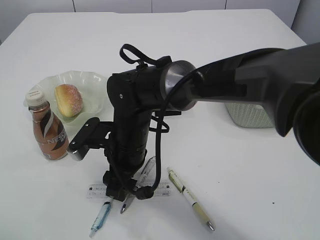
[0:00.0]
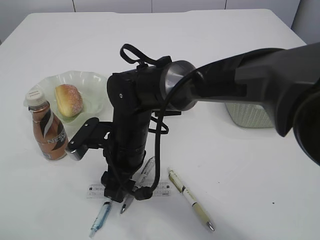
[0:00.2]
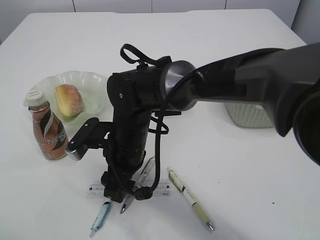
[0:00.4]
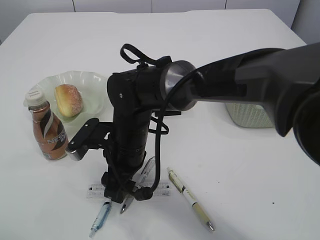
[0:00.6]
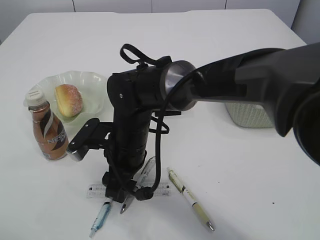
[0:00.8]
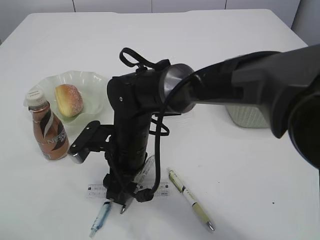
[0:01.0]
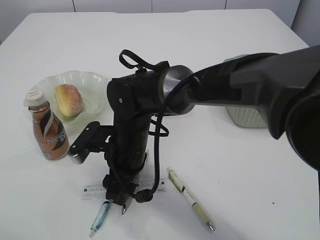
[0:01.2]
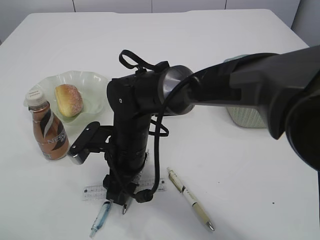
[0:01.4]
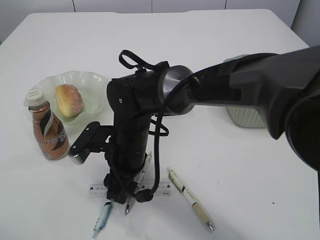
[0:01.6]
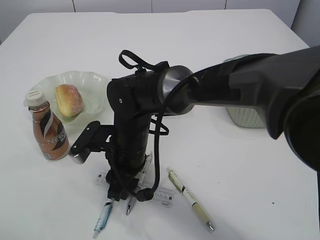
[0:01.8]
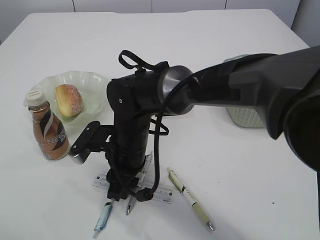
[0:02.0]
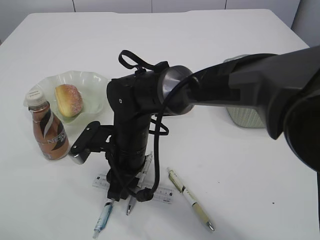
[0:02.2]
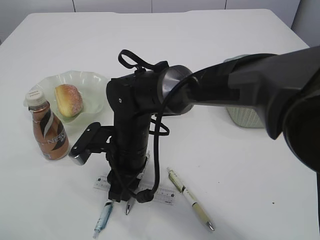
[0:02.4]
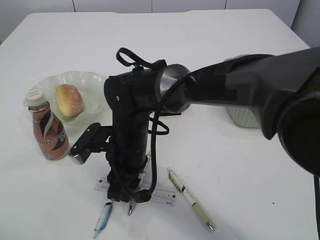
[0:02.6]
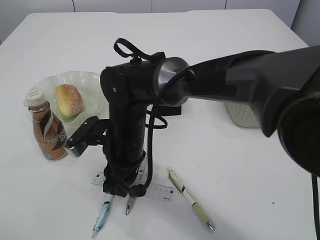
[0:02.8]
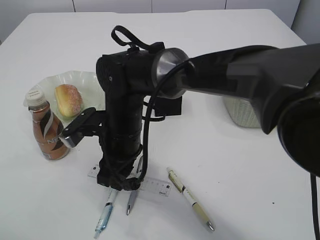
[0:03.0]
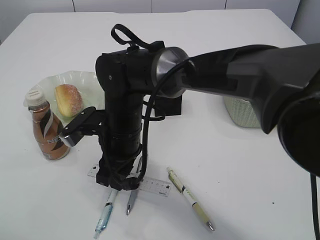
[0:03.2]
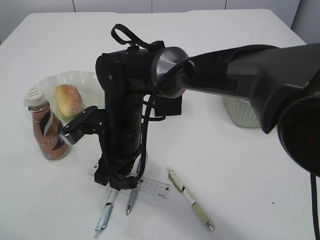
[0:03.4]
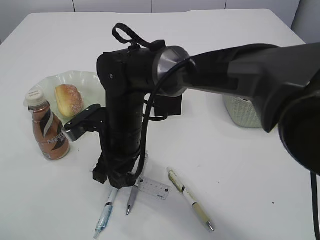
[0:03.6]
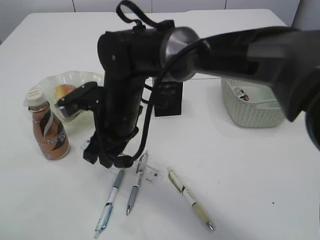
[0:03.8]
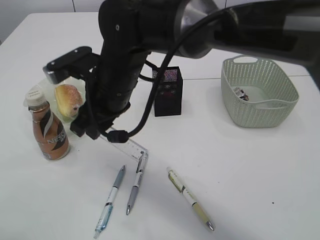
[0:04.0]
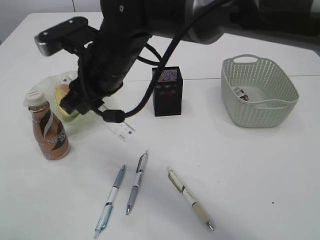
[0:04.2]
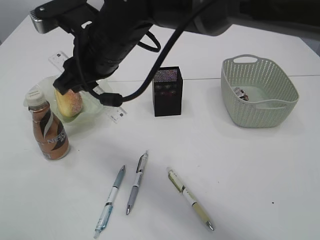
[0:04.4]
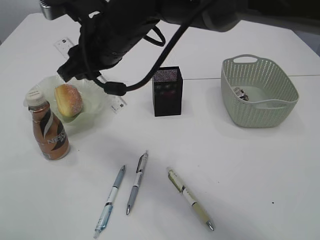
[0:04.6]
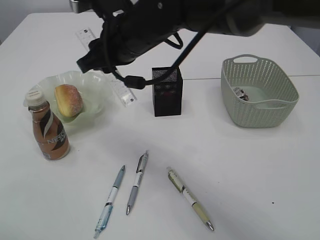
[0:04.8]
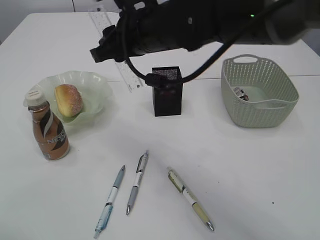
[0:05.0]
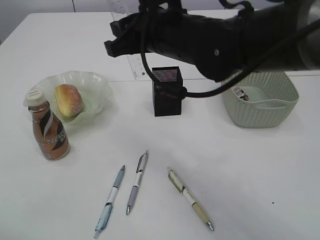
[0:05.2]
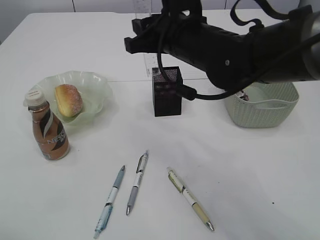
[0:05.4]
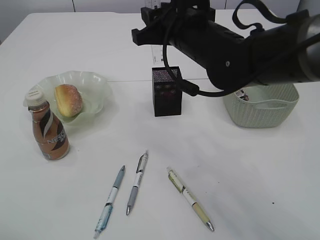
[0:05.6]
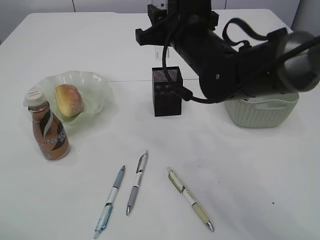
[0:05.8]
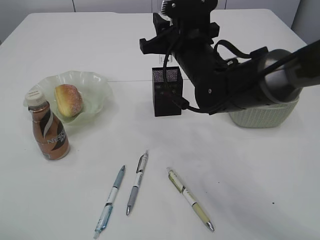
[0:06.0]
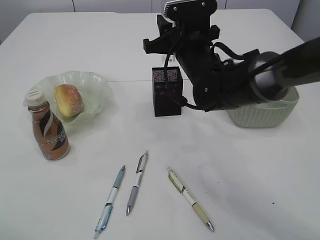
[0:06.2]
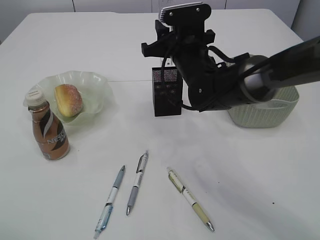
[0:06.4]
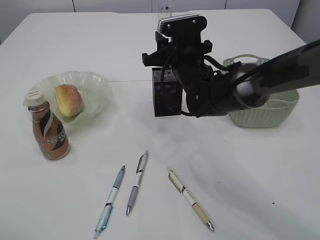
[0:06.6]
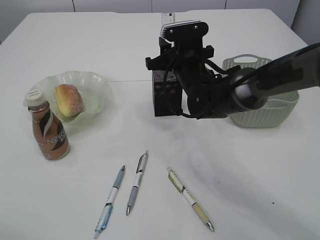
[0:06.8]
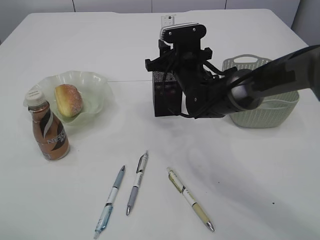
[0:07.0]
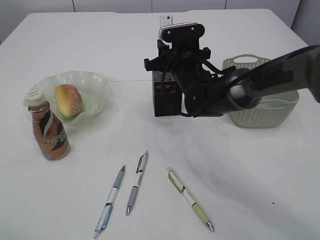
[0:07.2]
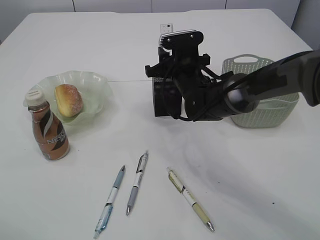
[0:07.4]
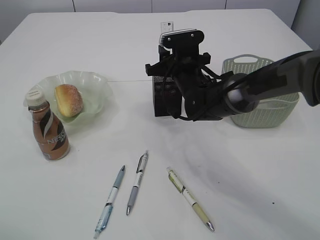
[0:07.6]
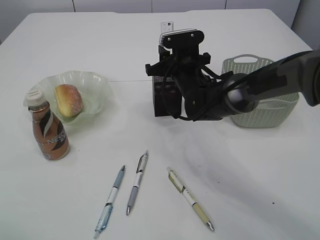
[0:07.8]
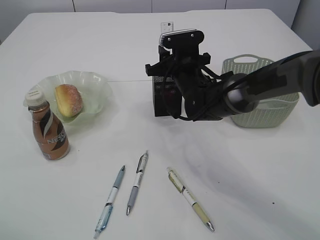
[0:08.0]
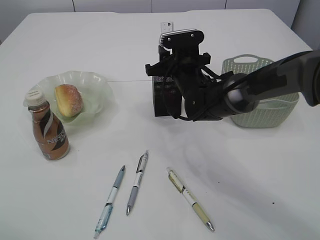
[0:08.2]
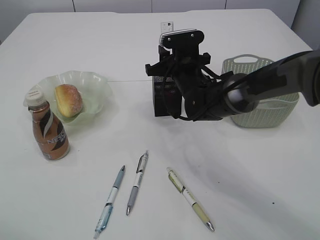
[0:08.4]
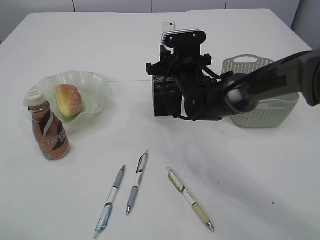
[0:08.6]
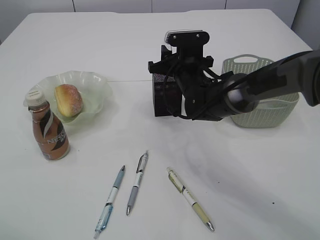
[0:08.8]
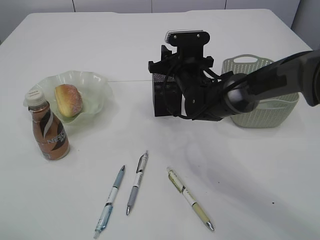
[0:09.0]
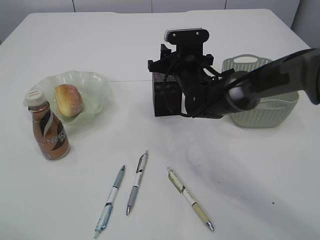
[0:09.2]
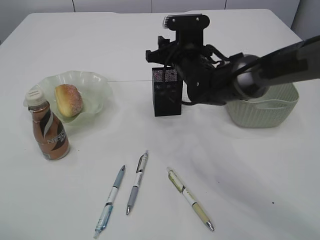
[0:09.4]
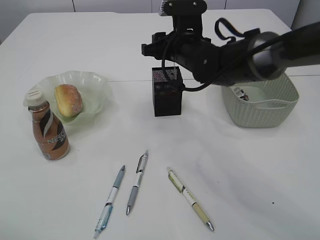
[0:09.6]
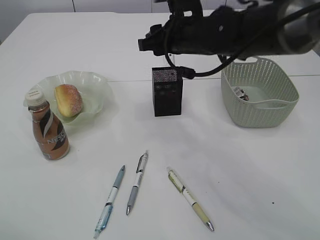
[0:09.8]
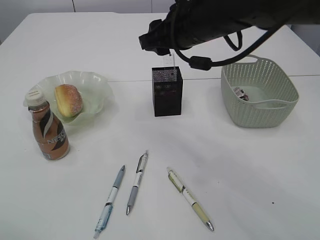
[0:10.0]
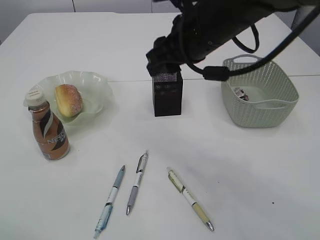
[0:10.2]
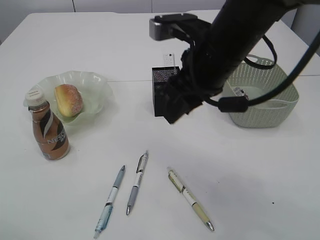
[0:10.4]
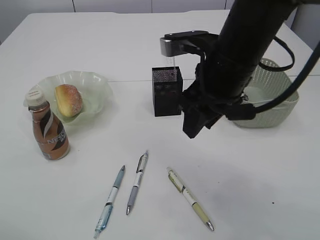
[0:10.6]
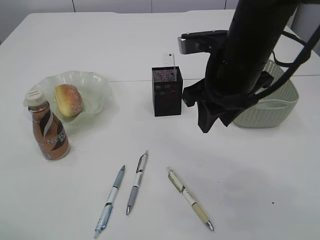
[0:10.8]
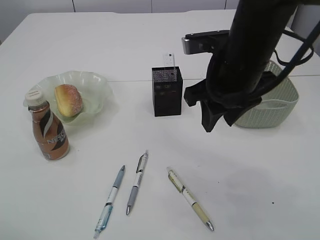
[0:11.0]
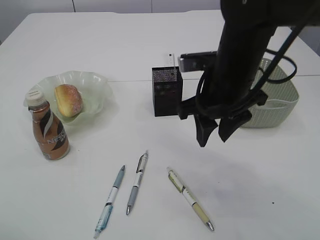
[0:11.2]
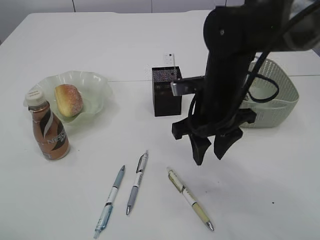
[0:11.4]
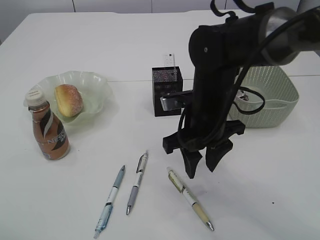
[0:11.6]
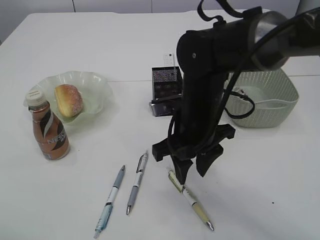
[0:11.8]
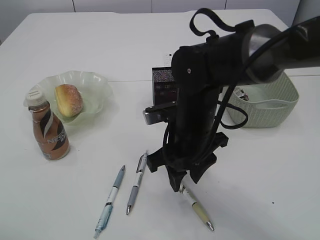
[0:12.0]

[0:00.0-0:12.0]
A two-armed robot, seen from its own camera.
Step, 0:00.0 to 0:03.8: pick up the ruler.
Step, 0:04.0 to 0:10.0: Place the ruler into the pen holder.
0:00.0 to 0:01.6: Neither gripper changes place.
0:01.6 to 0:03.0: The right gripper closes up.
0:03.0 to 0:04.4: The right gripper goes approximately 15 cm upward.
0:04.4 to 0:06.0: The right gripper shifts some 10 cm to the right.
0:06.0 to 0:07.6: The right gripper goes roughly 10 cm downward and forward.
0:07.6 to 0:09.0: The grippers make only small movements.
0:09.0 to 0:10.4: The right gripper is displaced backward and upward by approximately 20 cm.
0:10.4 to 0:12.0: The right gripper travels downward by approximately 10 cm.

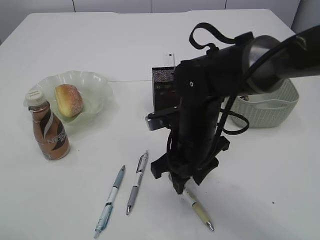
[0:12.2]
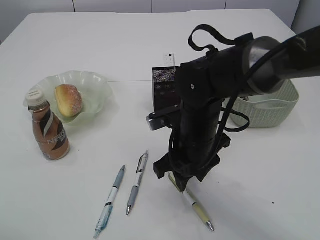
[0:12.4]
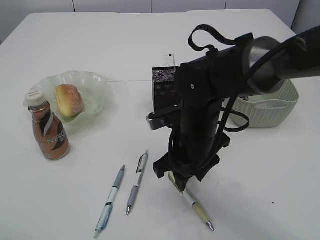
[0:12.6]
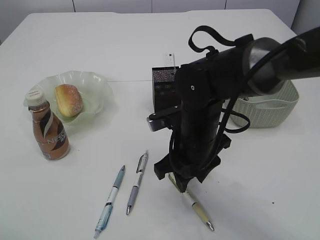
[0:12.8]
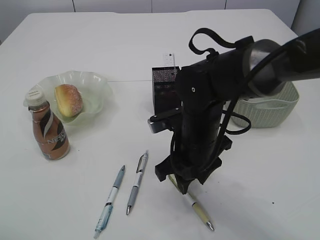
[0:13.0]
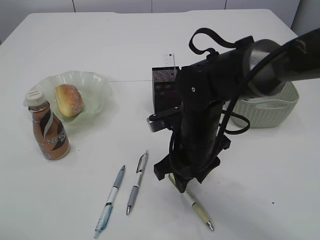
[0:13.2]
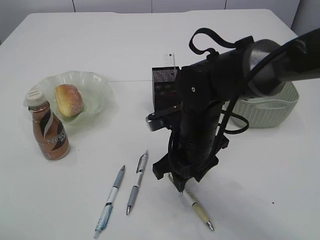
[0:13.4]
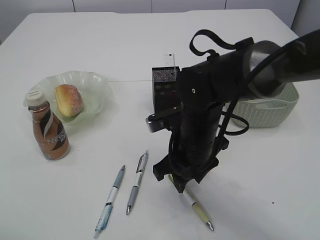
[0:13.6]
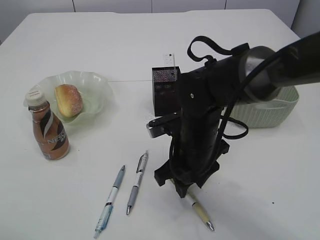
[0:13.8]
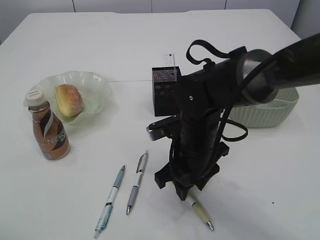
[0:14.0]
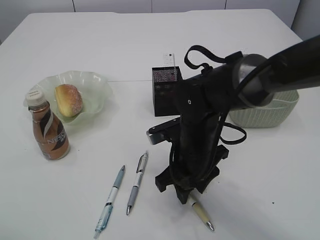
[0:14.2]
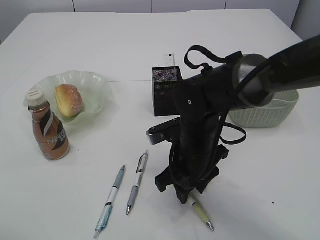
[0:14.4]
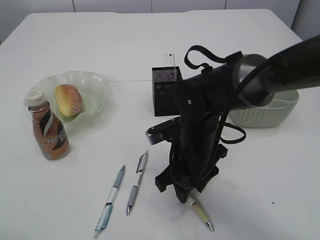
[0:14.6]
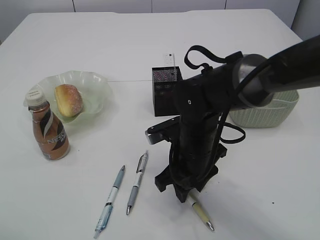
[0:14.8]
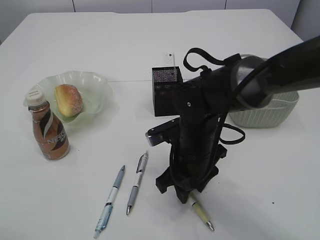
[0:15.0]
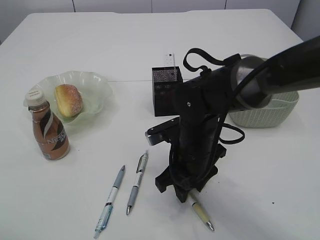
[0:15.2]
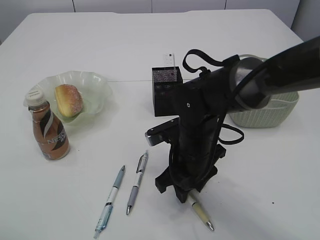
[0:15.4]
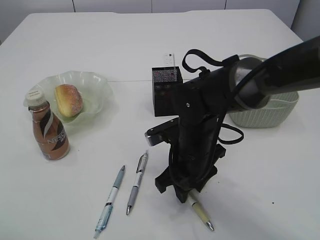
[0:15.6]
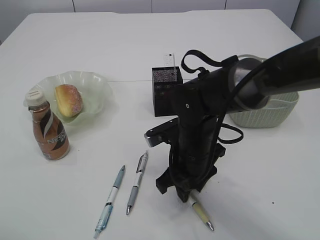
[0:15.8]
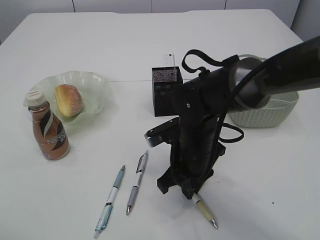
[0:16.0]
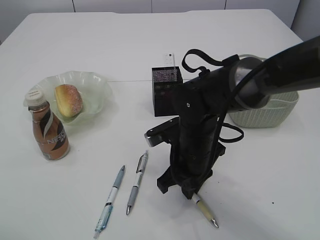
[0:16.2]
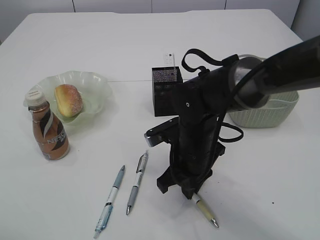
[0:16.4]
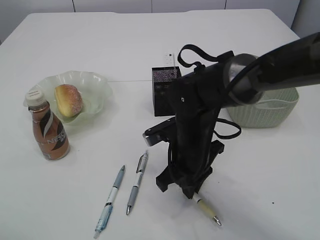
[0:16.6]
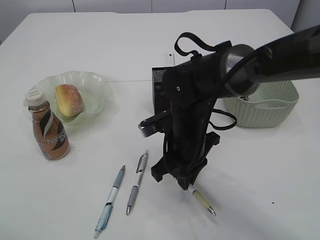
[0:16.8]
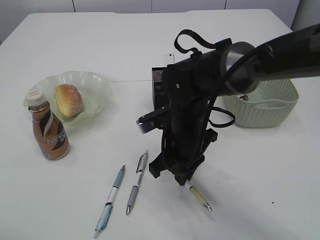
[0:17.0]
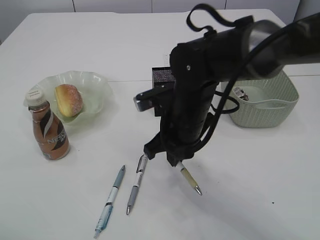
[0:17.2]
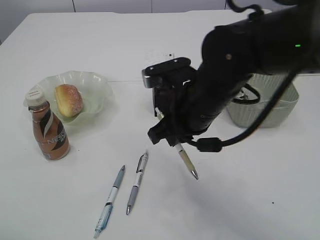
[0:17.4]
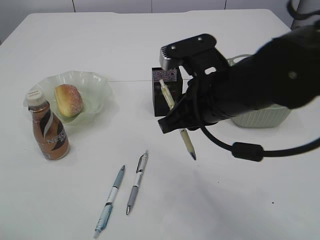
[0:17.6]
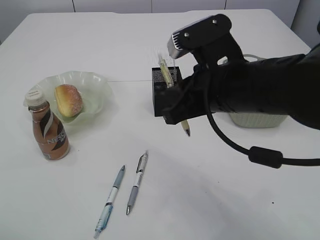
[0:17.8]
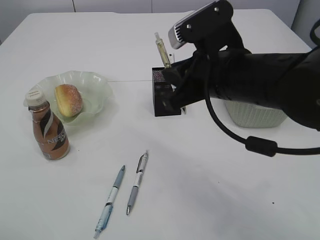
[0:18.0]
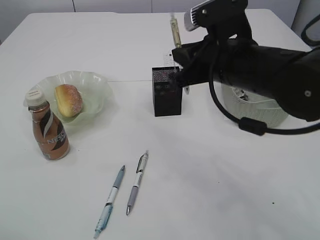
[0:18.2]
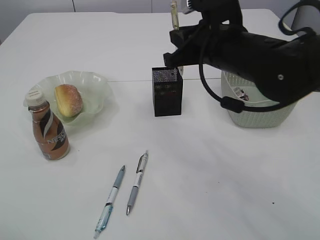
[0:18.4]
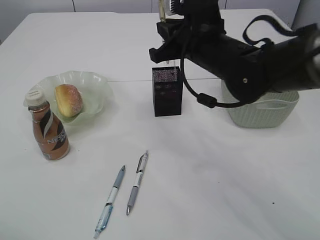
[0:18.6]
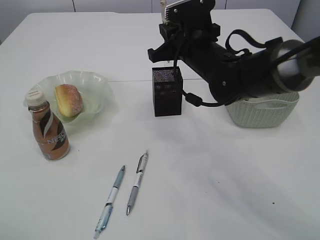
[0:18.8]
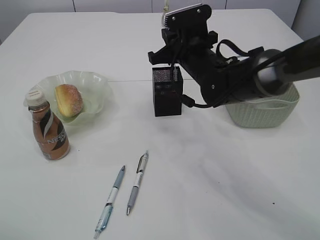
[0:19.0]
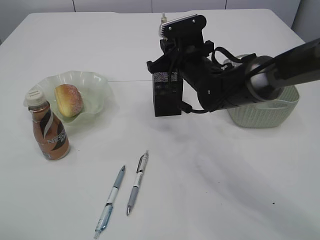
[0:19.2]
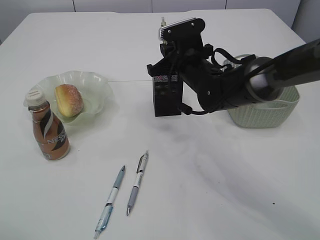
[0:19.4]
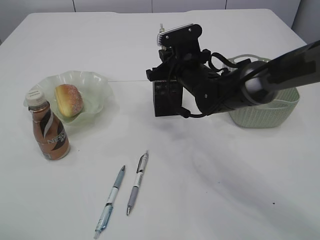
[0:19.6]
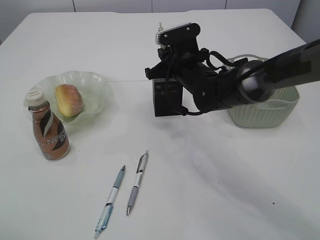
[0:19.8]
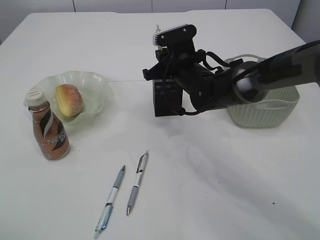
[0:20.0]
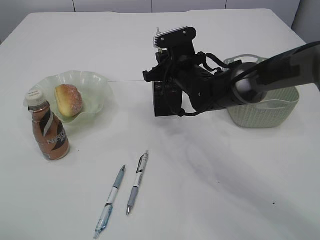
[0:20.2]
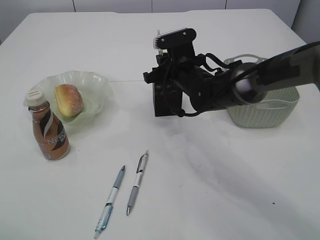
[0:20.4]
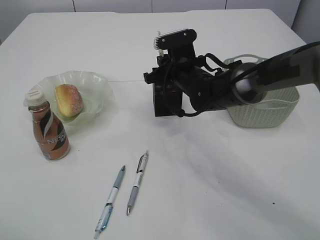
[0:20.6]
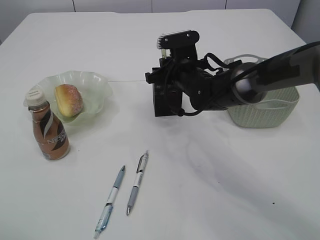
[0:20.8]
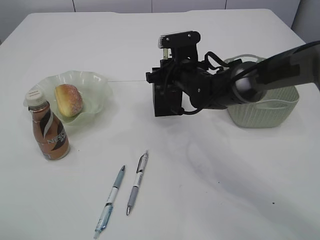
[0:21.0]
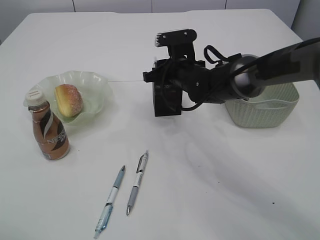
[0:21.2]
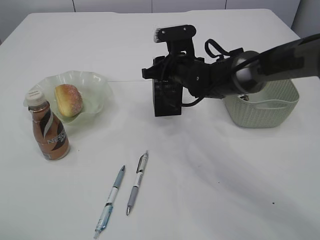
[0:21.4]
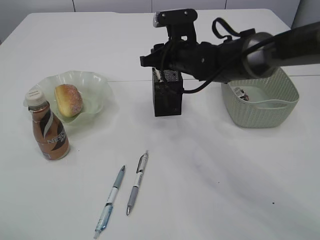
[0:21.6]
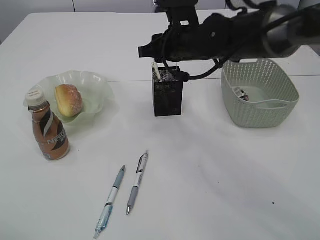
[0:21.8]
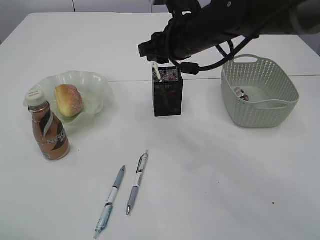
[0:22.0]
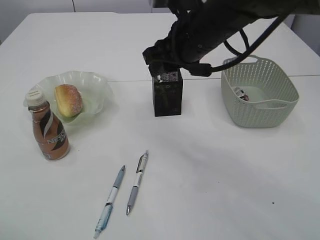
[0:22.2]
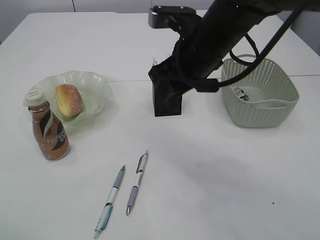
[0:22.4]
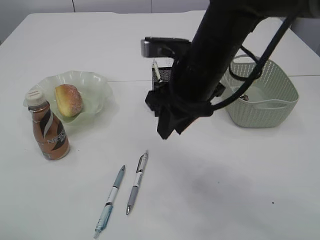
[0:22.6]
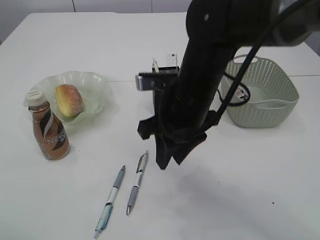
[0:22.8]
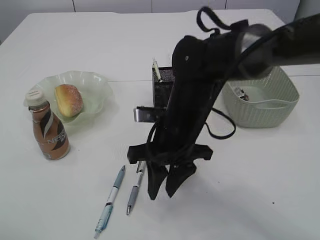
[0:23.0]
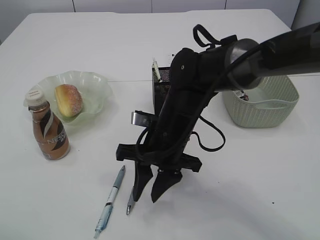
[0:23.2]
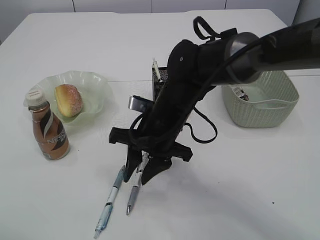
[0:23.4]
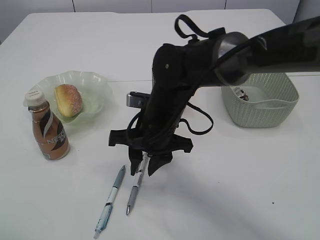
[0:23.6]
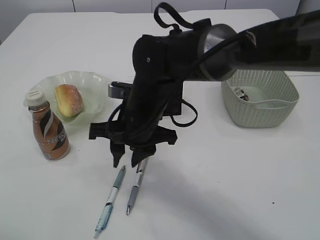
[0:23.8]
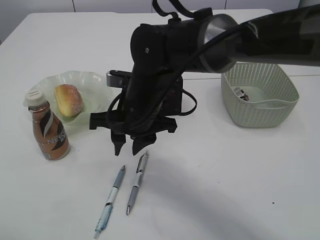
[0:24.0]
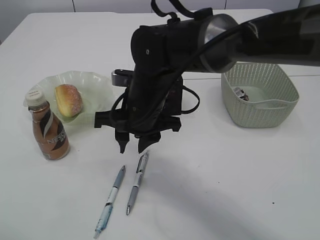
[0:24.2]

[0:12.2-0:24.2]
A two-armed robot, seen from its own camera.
Step, 0:12.2 to 0:17.2: Pick up the pen with right arm.
Step, 0:17.4 to 0:21.8: Place the pen into the pen holder.
0:12.2 to 0:15.2: The grippers make only small movements.
0:15.2 to 0:16.6: The right gripper closes up.
0:16.6 to 0:18.2: The right gripper travels upward by about 15 cm.
0:18.2 to 0:19.8: The right gripper is displaced forward and downward by about 15 cm.
0:19.8 to 0:21.2: The right gripper opens its fingers.
0:21.2 to 0:22.6: The right gripper travels backward and upward by approximately 20 cm.
0:22.6 to 0:24.2: The right gripper is displaced to the left and downward by approximately 10 cm.
